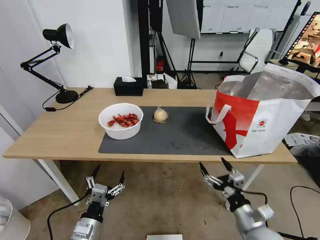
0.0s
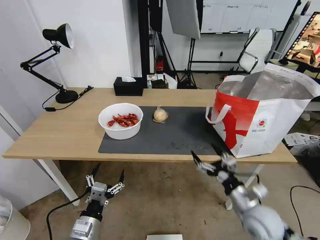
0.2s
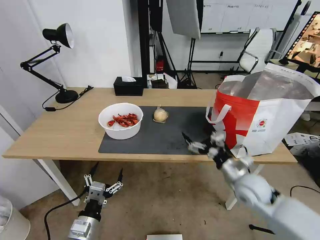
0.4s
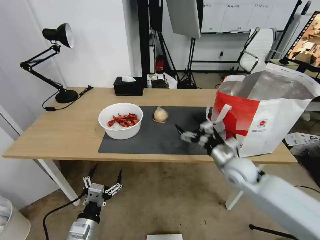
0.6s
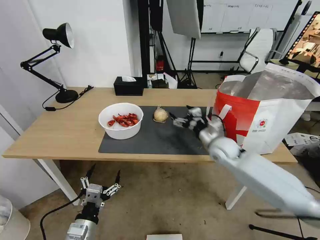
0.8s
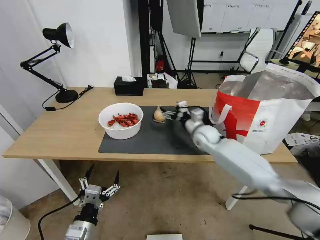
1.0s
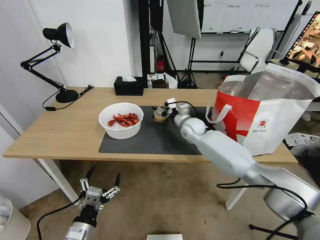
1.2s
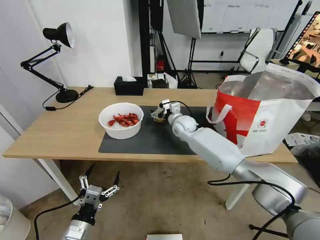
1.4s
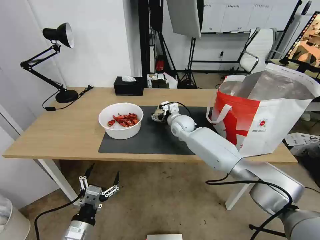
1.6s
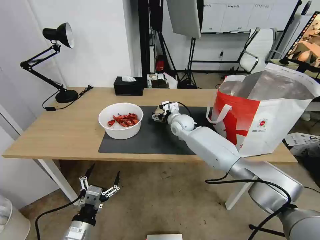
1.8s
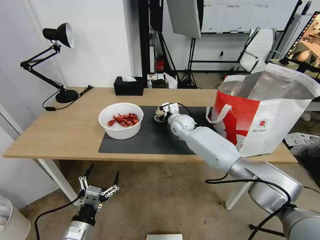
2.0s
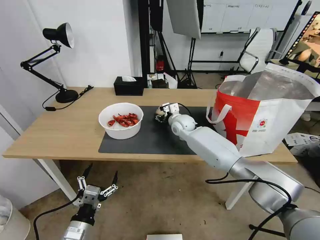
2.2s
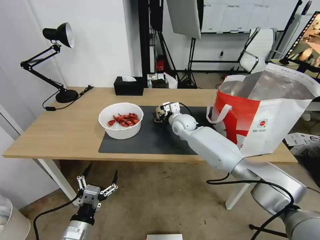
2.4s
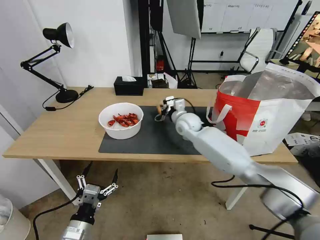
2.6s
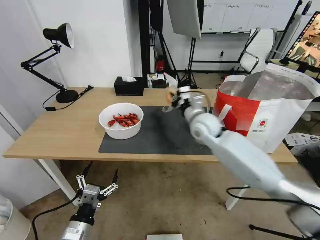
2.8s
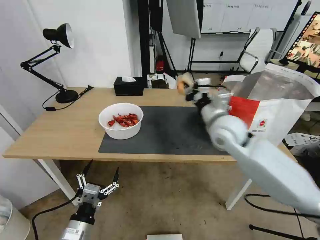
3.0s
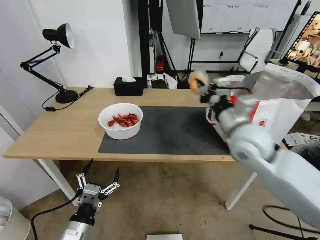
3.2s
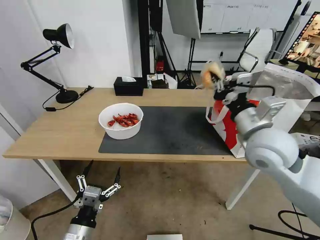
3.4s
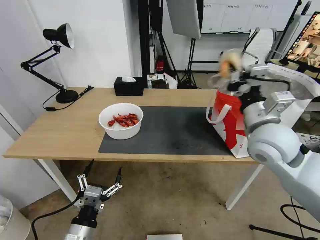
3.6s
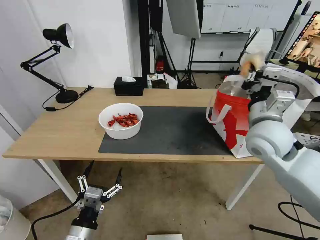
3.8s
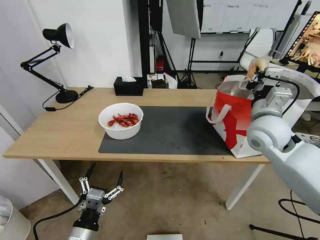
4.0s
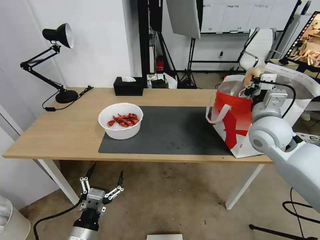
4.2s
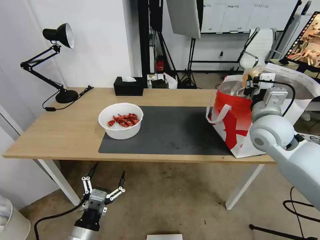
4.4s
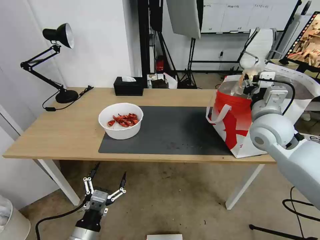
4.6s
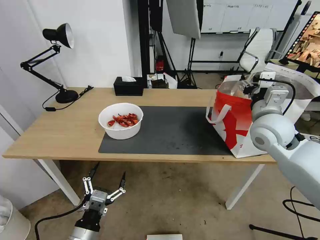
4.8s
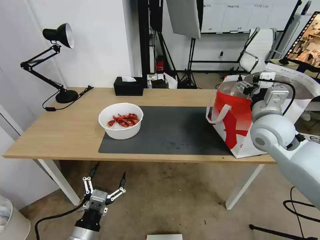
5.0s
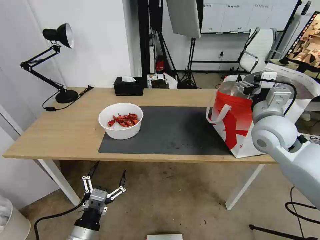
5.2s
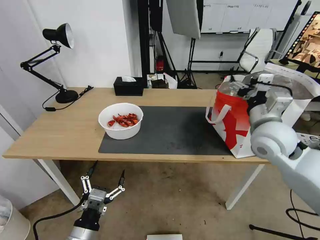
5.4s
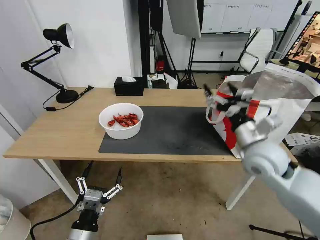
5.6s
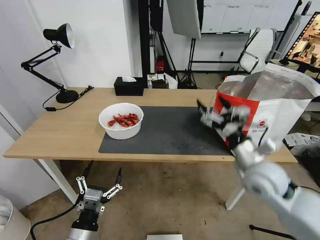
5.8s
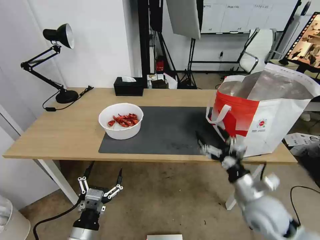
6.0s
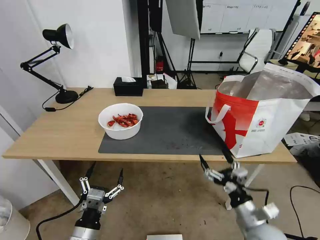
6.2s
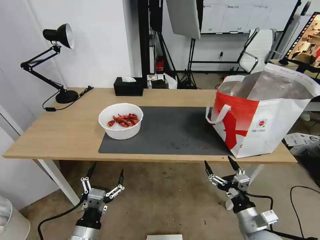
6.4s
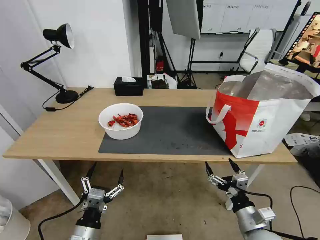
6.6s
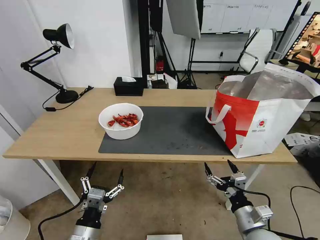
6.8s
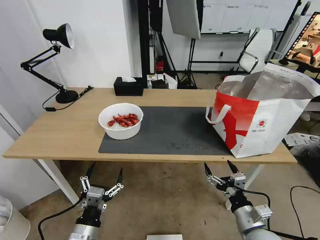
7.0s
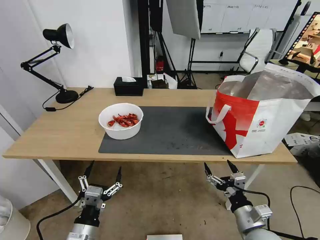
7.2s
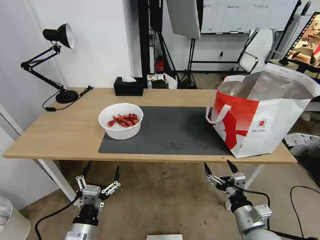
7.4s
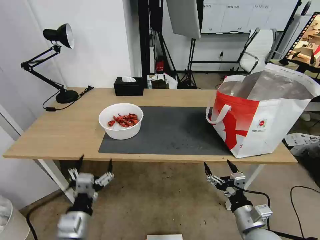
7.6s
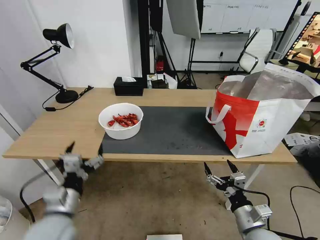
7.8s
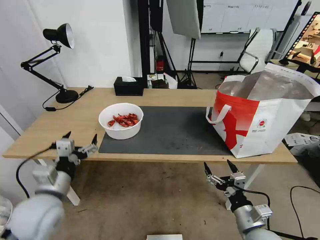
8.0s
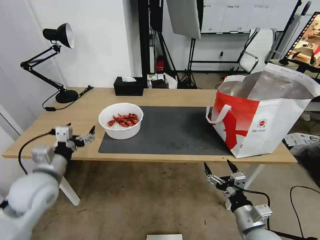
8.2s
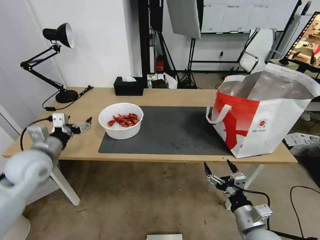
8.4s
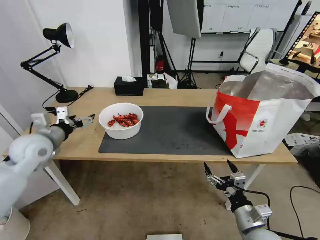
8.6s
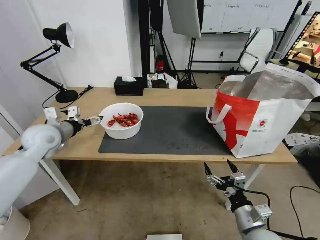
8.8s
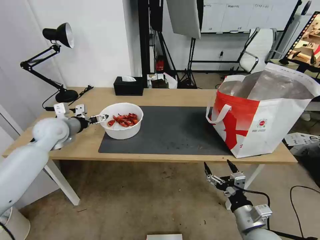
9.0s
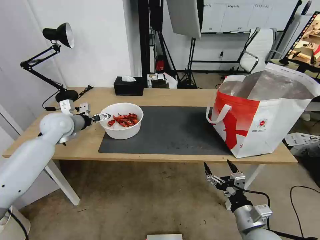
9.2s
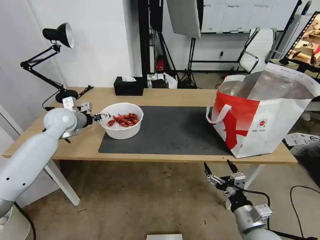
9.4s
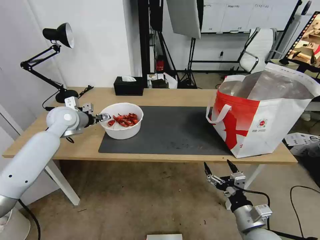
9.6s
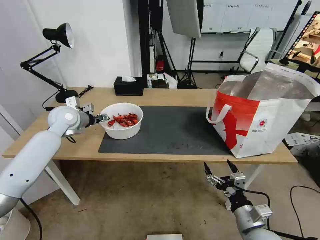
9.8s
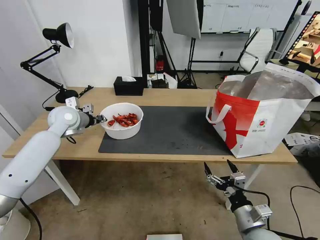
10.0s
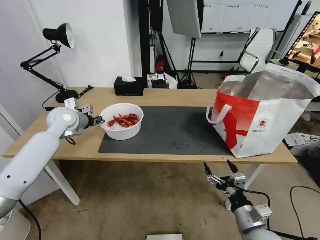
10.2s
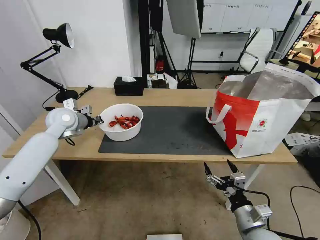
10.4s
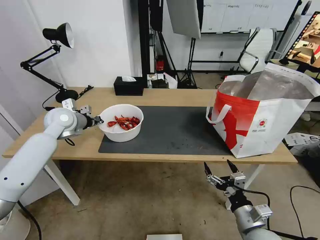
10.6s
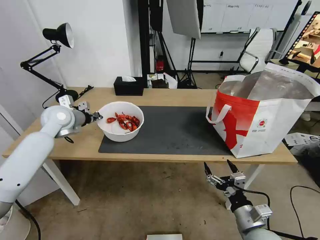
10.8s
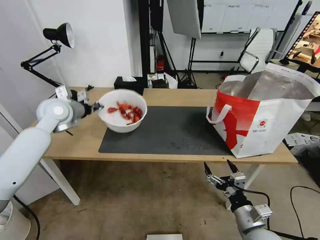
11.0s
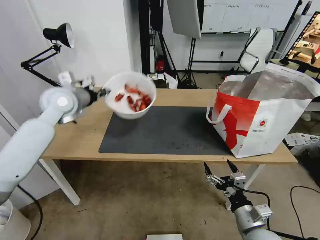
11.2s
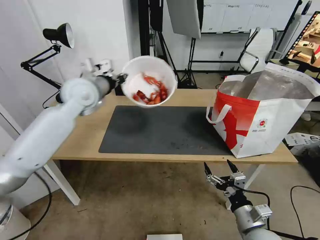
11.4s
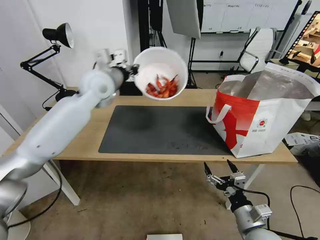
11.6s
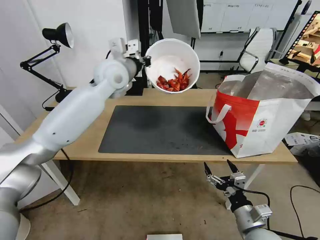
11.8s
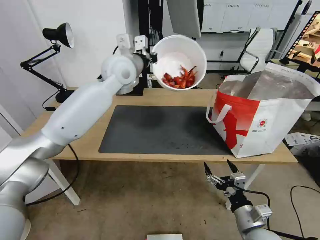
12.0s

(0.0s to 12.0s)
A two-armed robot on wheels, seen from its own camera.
Task of the whole recording: Pick up the trash from the table and place it into the takeout bag.
0.0s - 1.6s: The right gripper heads forward and to the left, covering some 40 cm.
1.6s - 3.0s: The right gripper goes approximately 20 cm backward, upward and to the right, and closes up.
3.0s - 4.4s: The right gripper moves to the right, roughly 10 cm.
4.4s - 6.0s: The right gripper heads backward and downward, covering roughly 20 cm, and opens.
6.0s - 7.6s: The right gripper shifts about 10 cm backward and downward.
7.6s - 9.0s: The left gripper goes roughly 35 cm forward and to the left.
9.0s - 10.4s: The left gripper closes.
10.4s - 12.0s: The left gripper goes about 25 cm to the right and upward.

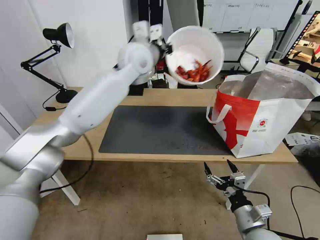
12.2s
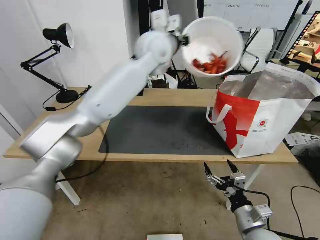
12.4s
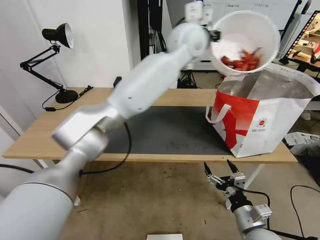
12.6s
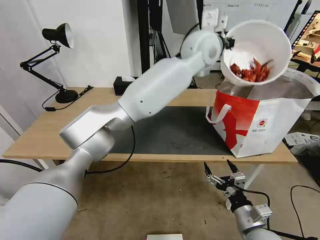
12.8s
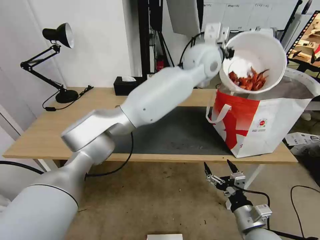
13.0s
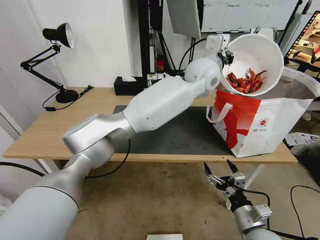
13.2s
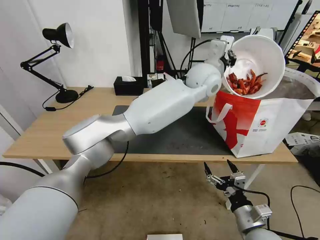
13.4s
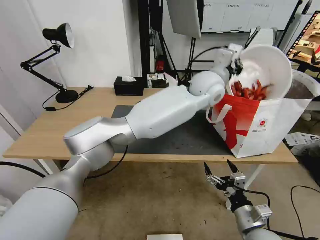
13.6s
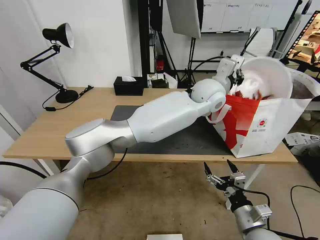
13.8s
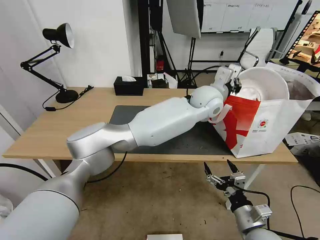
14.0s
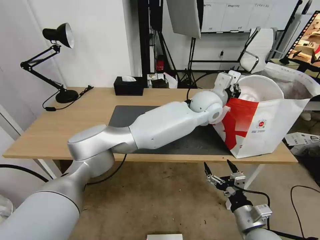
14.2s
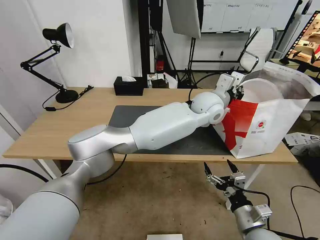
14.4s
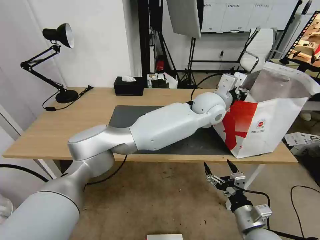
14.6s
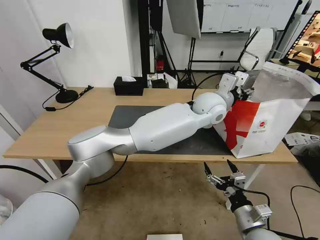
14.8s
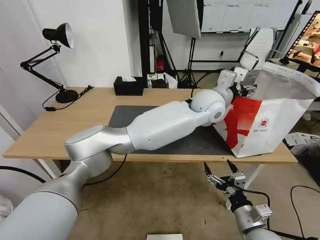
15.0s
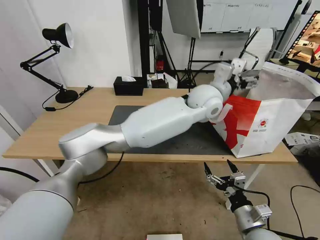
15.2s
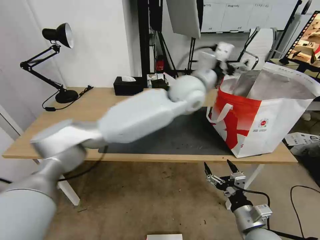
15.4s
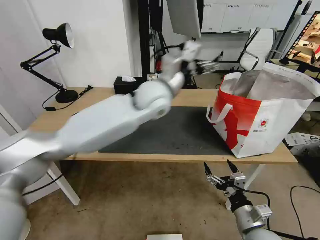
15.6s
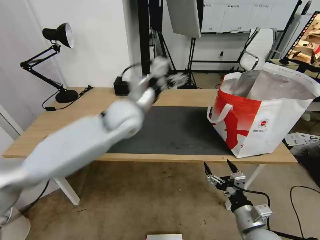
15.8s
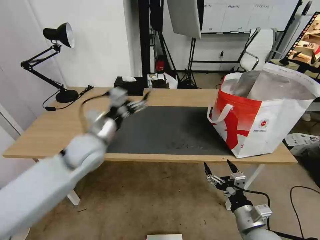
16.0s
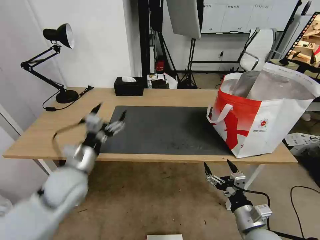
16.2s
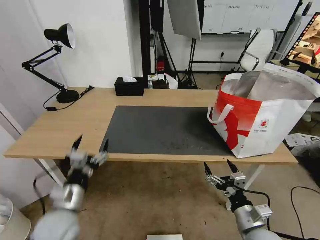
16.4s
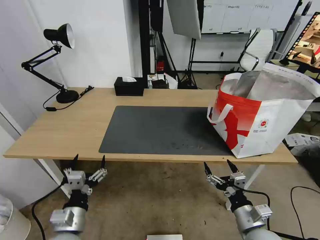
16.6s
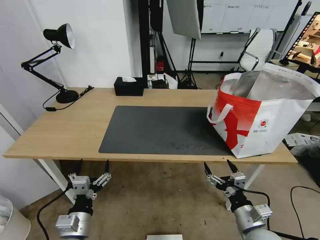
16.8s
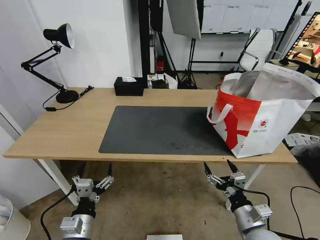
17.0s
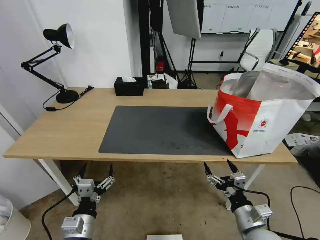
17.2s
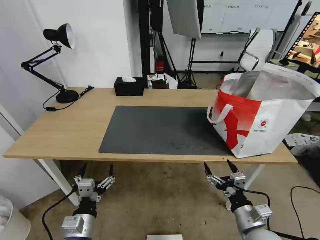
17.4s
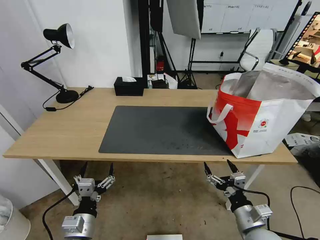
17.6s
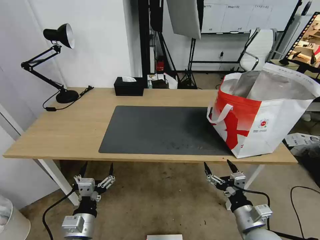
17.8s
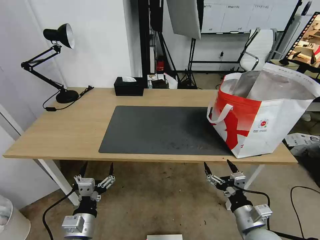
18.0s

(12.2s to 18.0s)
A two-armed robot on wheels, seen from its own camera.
Task of the whole recording: Pick up the trash from the table and place it into the takeout bag.
12.2s - 13.6s: The left gripper goes some 20 cm to the right.
13.6s - 15.0s: The left gripper opens.
15.0s - 16.6s: The left gripper shifts about 60 cm to the left, backward and downward.
16.6s - 18.0s: The grippers stay close to where they were, moving slightly.

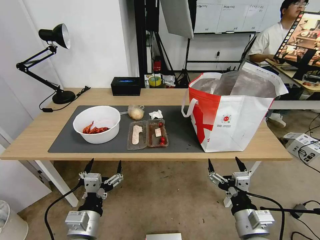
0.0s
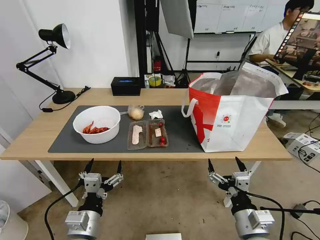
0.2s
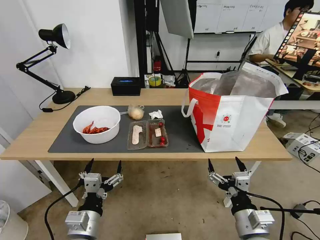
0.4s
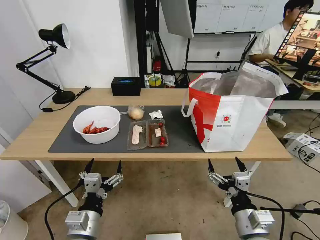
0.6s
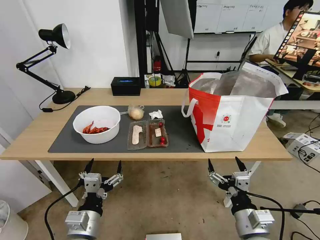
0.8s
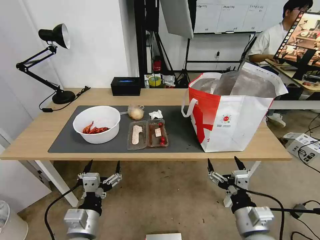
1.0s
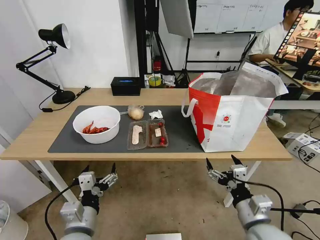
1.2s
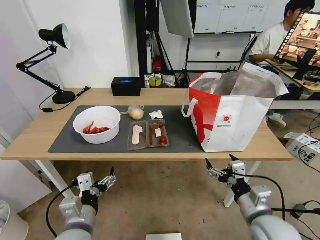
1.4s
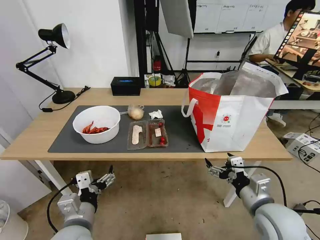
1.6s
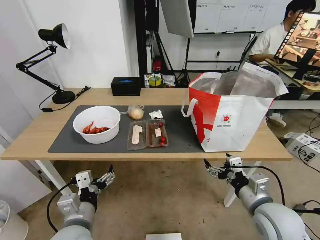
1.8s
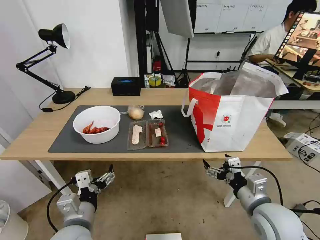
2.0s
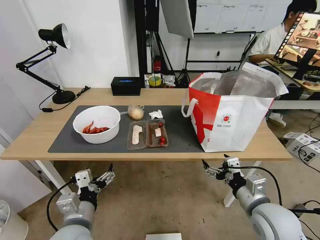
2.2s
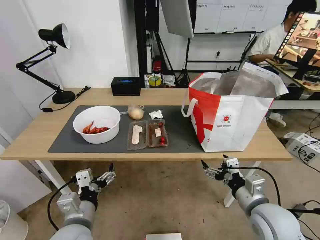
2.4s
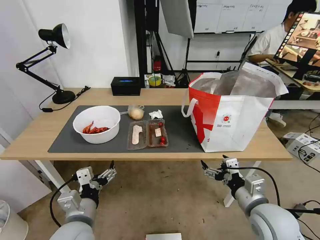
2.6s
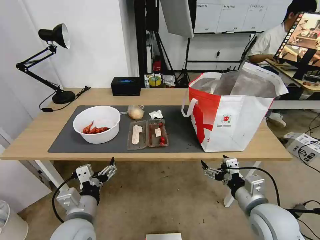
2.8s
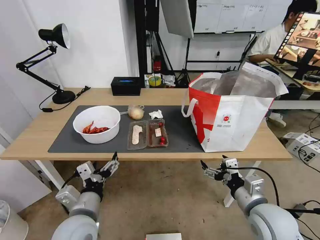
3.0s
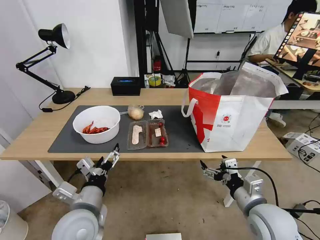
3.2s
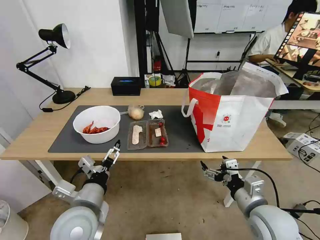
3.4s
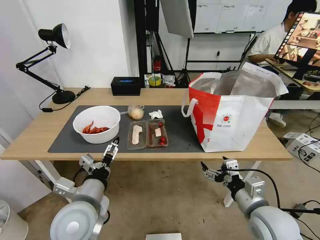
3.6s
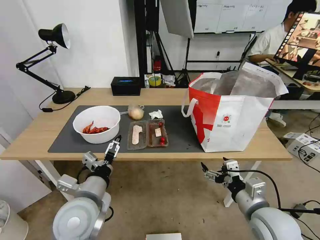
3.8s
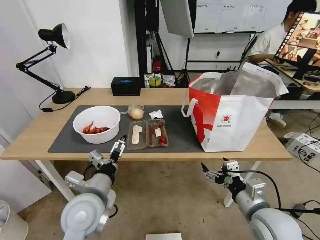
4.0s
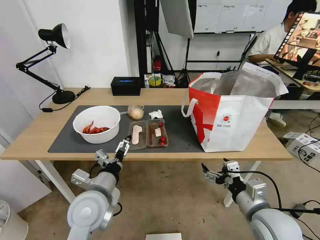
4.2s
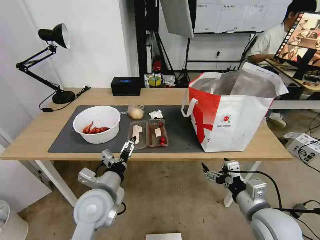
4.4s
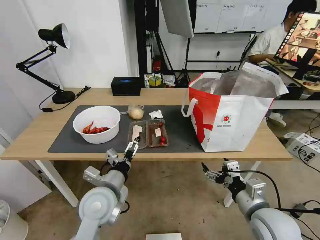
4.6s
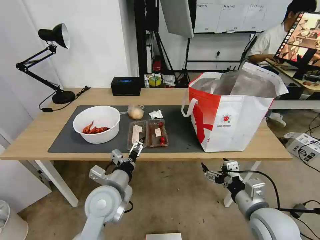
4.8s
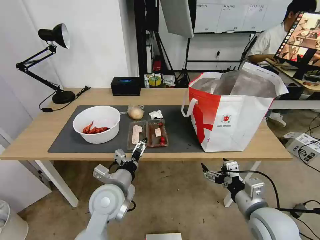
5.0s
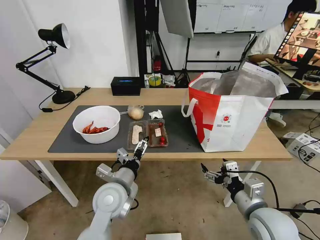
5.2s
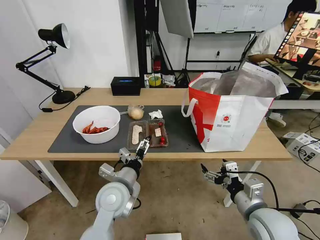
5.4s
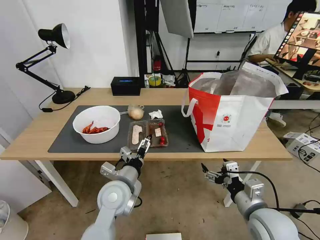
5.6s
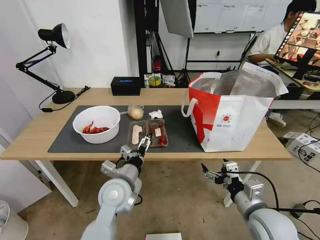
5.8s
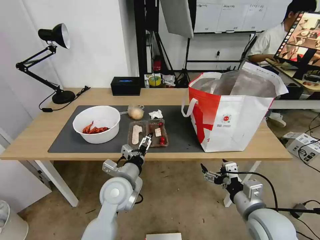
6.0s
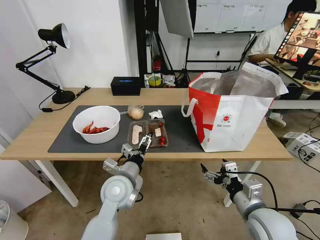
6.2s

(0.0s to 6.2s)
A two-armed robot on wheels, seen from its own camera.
Task of the whole recording: Pick up the trash from the table and place it into the takeout bag.
3.2s - 4.6s: The left gripper heads forward, covering about 5 cm.
4.6s - 6.2s: The left gripper shifts by approximately 5 cm.
